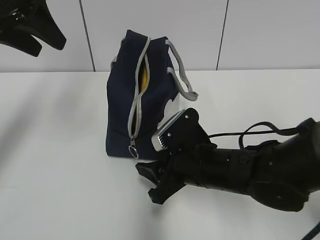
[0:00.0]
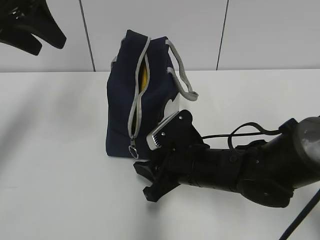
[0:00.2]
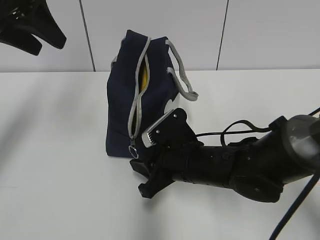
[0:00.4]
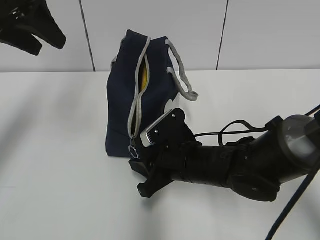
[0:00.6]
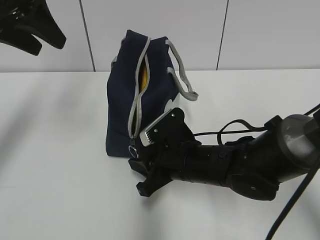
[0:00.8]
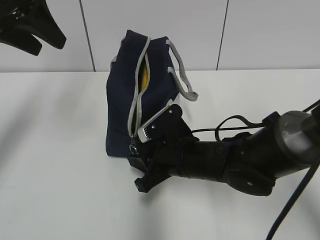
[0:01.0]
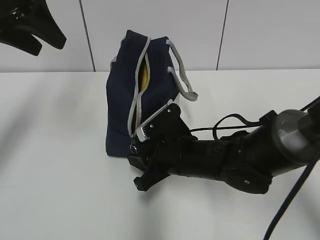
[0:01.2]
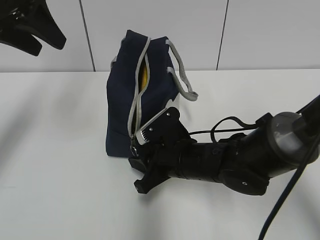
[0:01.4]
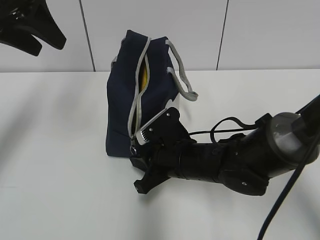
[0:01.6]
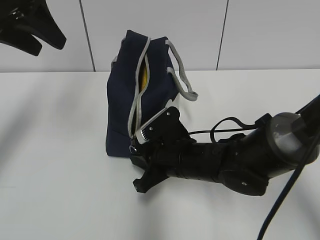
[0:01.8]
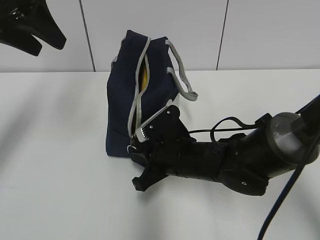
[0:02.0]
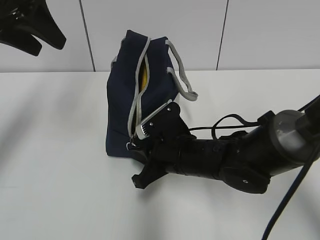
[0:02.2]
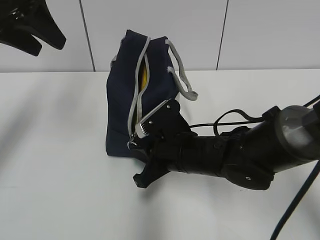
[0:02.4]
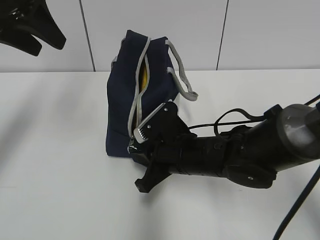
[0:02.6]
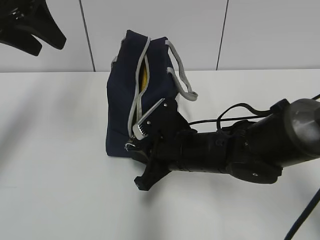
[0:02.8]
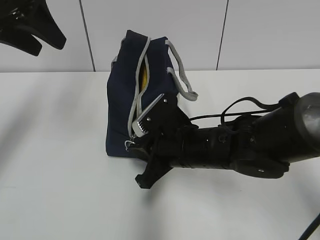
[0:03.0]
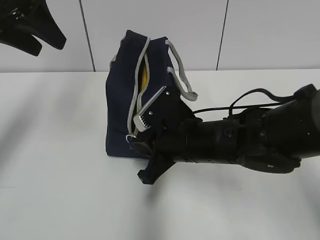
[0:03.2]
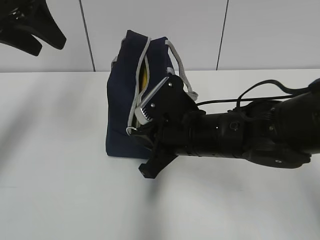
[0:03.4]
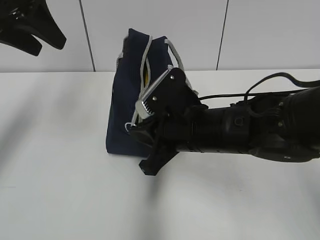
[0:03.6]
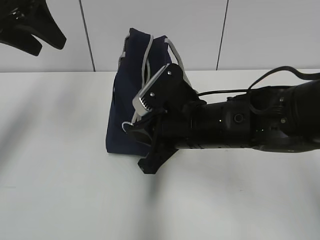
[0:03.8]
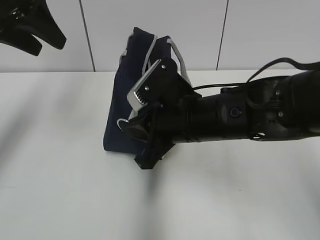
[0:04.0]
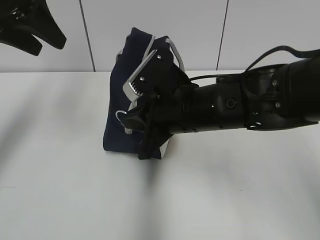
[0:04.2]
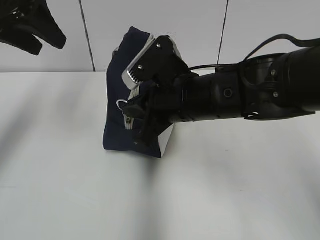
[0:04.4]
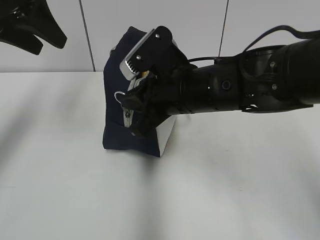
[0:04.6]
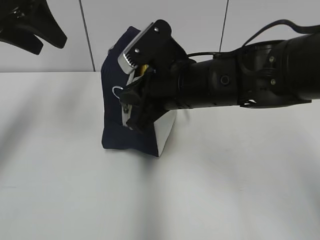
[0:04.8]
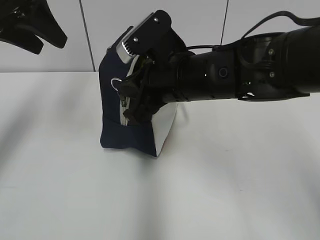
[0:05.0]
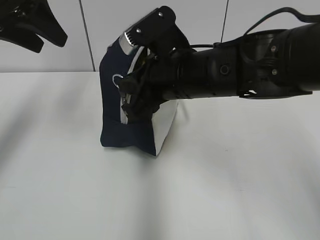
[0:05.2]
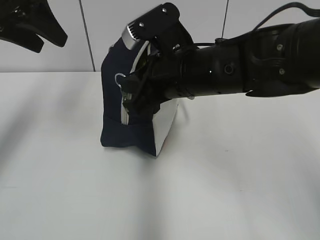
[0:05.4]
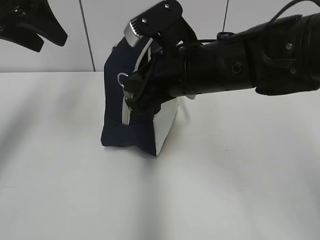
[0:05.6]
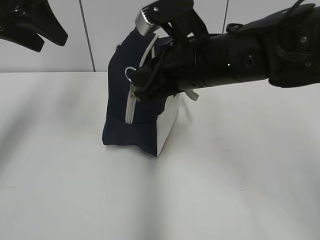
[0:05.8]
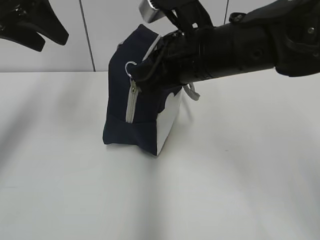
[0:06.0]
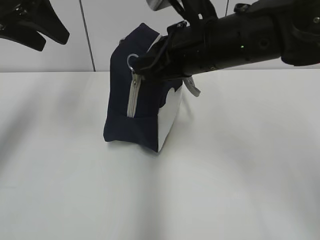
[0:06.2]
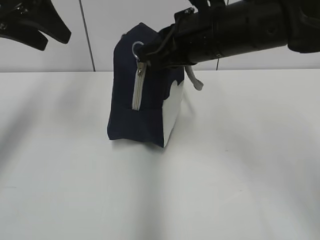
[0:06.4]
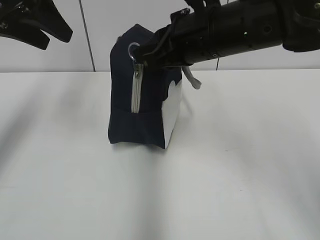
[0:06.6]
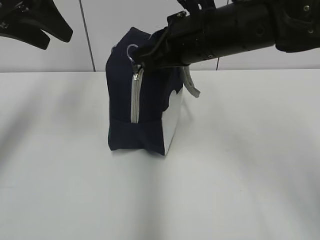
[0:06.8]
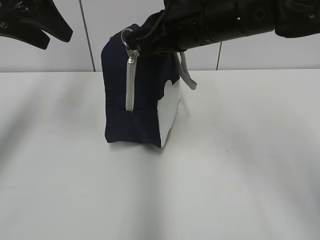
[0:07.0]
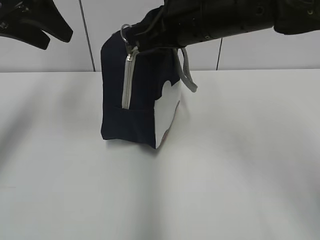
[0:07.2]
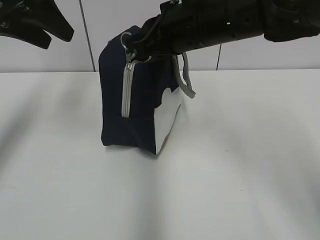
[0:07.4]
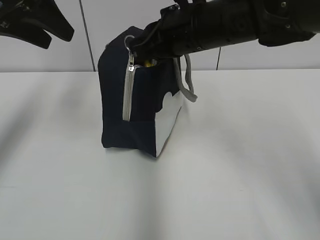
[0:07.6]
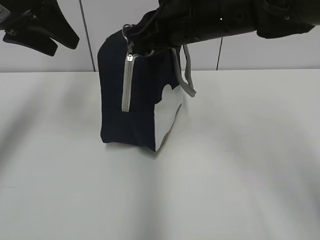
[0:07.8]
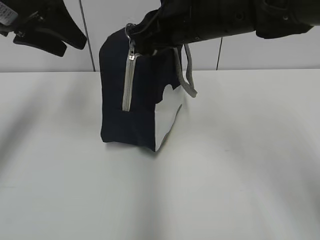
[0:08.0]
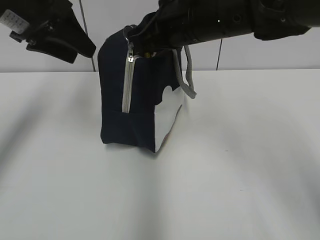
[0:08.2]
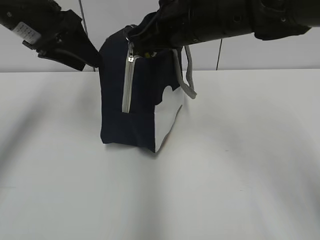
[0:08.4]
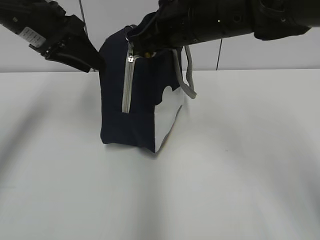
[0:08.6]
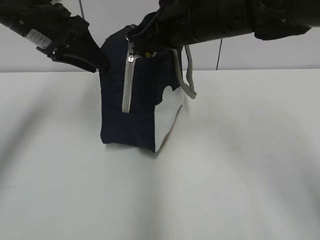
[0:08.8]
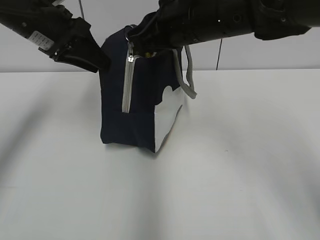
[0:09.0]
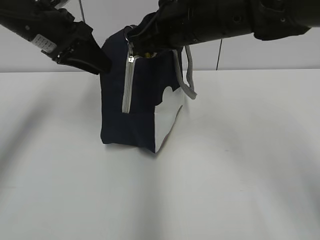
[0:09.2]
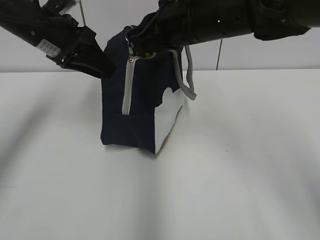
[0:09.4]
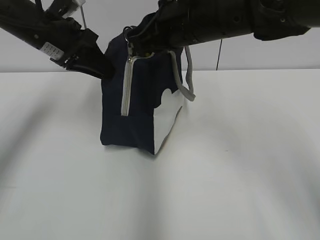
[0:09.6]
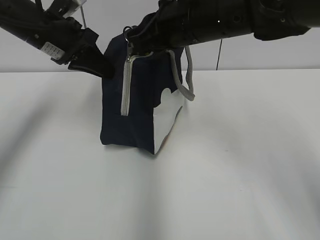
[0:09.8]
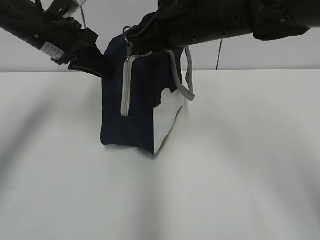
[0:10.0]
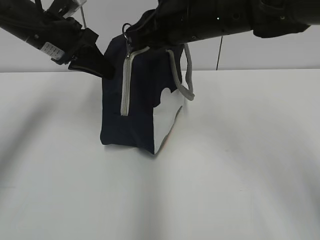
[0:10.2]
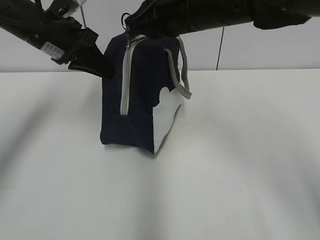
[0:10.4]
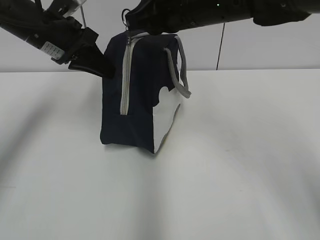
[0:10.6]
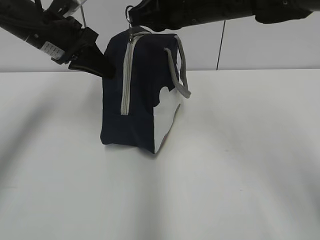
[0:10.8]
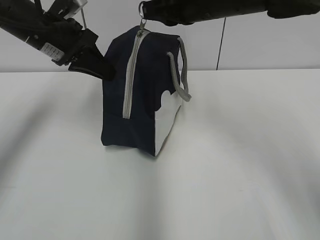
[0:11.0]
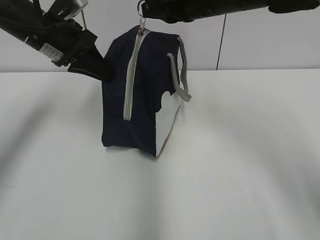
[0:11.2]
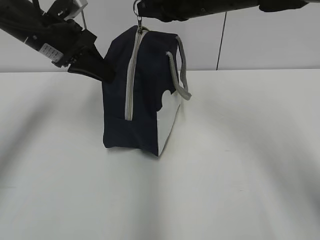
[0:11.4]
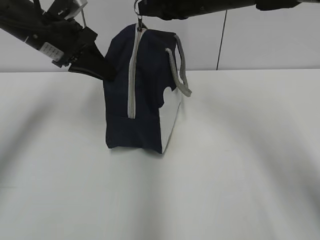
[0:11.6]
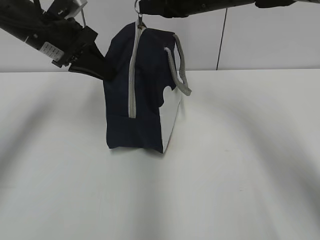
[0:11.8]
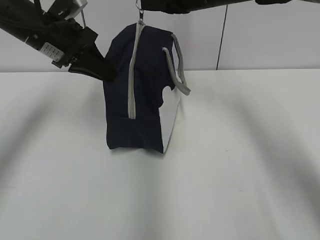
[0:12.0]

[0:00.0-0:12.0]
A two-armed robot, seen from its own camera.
Step, 0:00.0 to 0:10.0: Grab the lunch bag with your left hand.
0:00.0 to 0:01.6: The right gripper closes its fingers.
0:01.6 to 0:03.0: The grippers make only small movements.
0:03.0 to 0:04.4: The right gripper goes approximately 10 cm upward.
0:04.4 to 0:06.0: The right gripper goes approximately 5 cm upward.
0:06.0 to 0:07.6: The right gripper ends up about 5 cm from where it was.
0:07.6 to 0:09.0: The left gripper is displaced downward by roughly 5 cm.
0:09.0 to 0:10.4: The left gripper closes up.
0:10.4 to 0:12.0: The right gripper shifts about 10 cm forward.

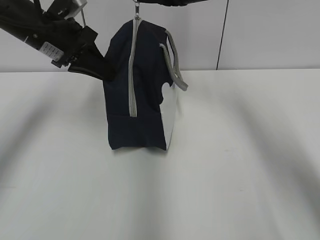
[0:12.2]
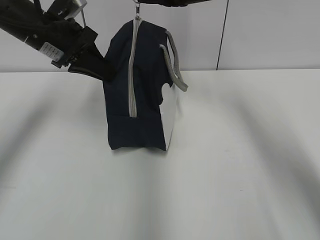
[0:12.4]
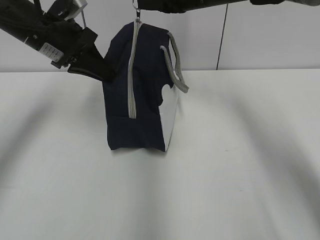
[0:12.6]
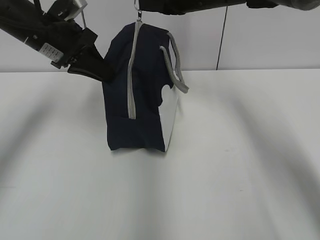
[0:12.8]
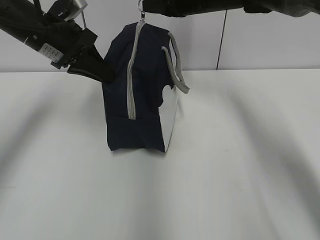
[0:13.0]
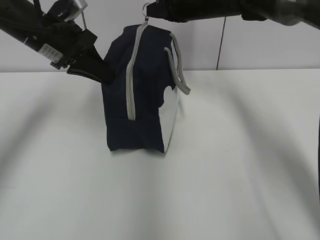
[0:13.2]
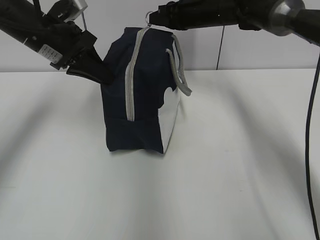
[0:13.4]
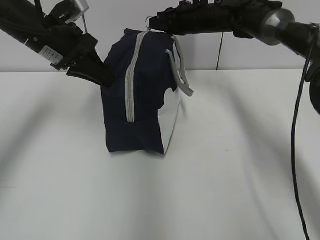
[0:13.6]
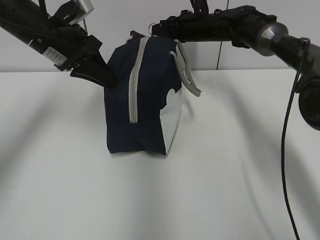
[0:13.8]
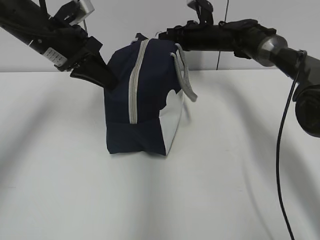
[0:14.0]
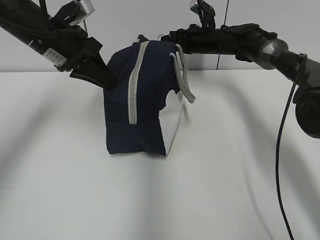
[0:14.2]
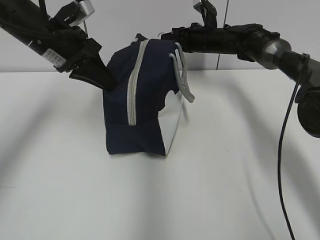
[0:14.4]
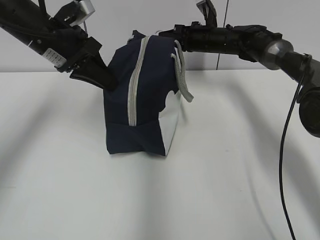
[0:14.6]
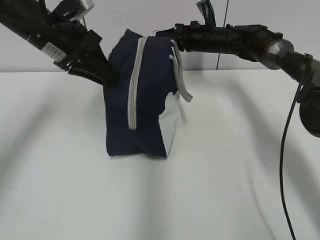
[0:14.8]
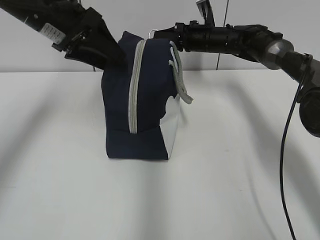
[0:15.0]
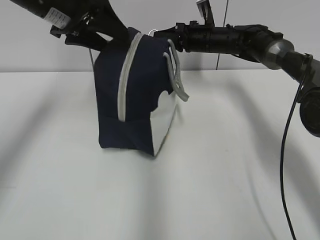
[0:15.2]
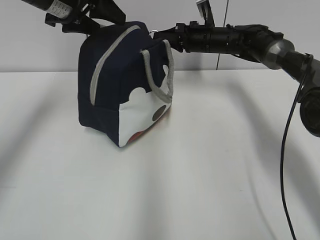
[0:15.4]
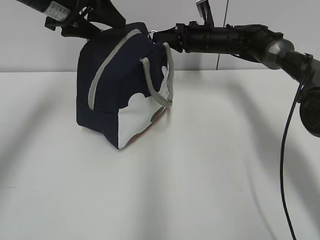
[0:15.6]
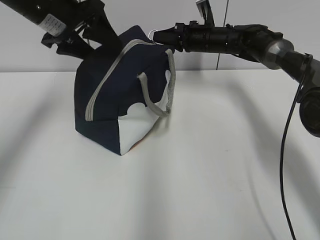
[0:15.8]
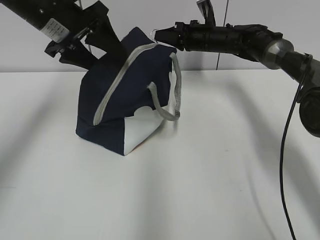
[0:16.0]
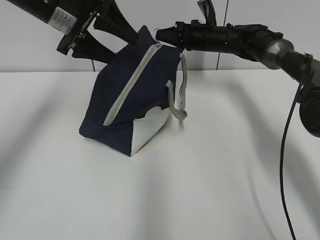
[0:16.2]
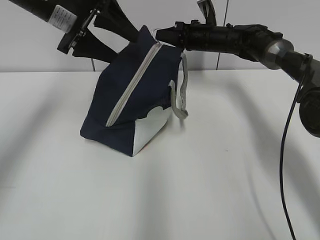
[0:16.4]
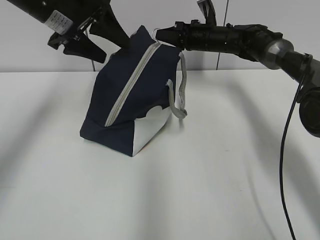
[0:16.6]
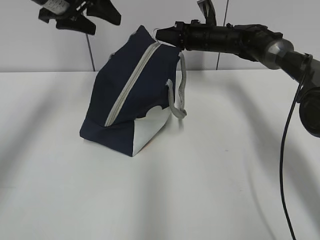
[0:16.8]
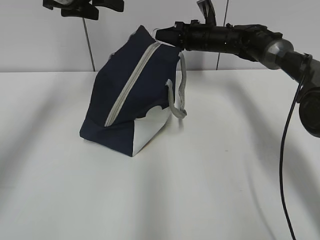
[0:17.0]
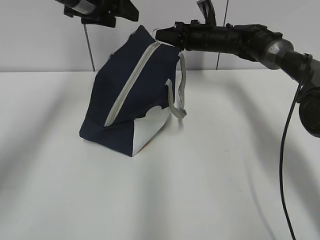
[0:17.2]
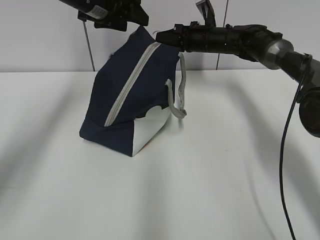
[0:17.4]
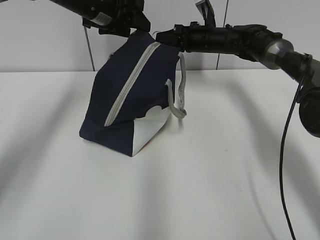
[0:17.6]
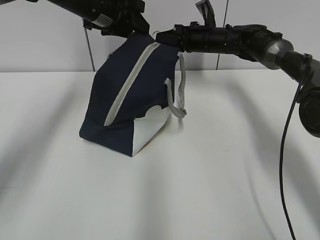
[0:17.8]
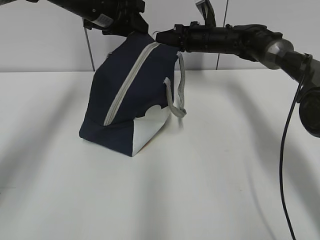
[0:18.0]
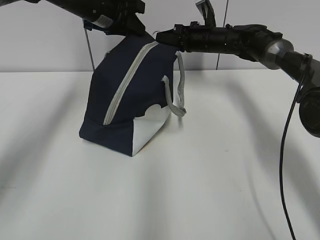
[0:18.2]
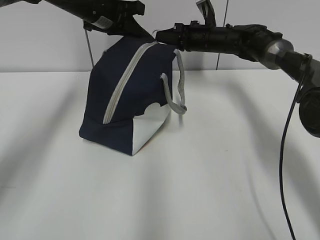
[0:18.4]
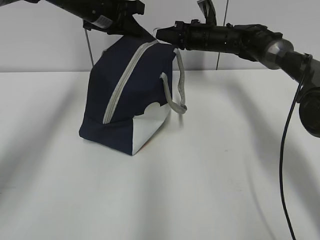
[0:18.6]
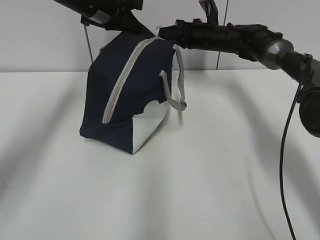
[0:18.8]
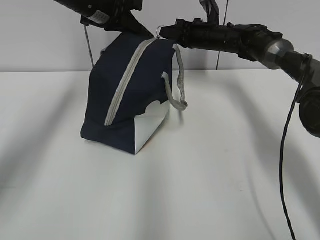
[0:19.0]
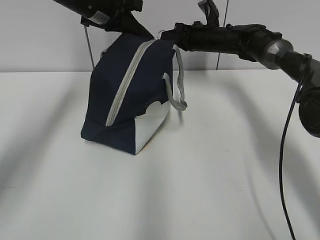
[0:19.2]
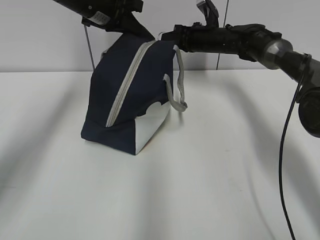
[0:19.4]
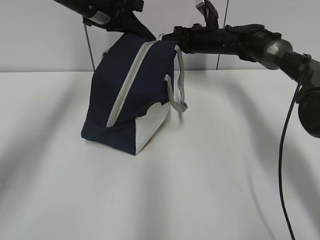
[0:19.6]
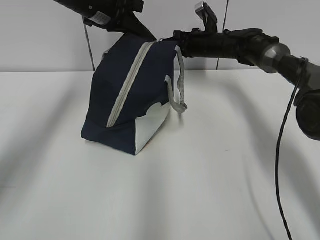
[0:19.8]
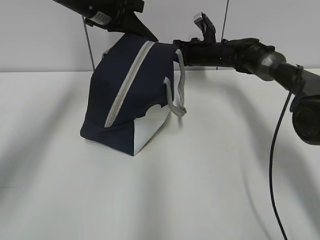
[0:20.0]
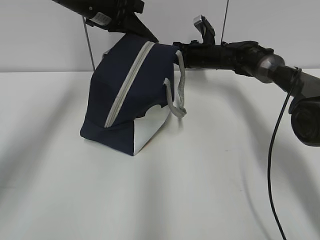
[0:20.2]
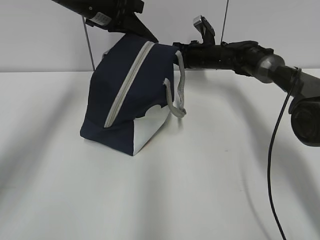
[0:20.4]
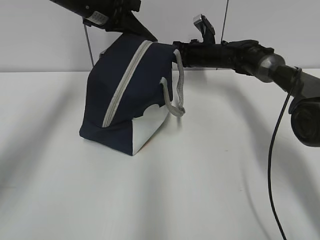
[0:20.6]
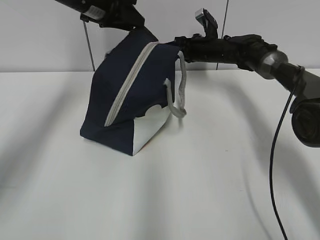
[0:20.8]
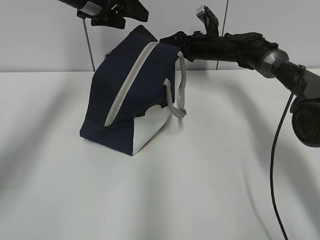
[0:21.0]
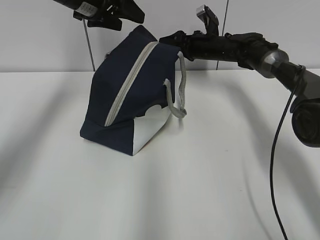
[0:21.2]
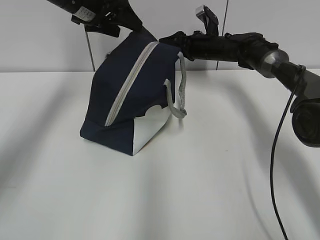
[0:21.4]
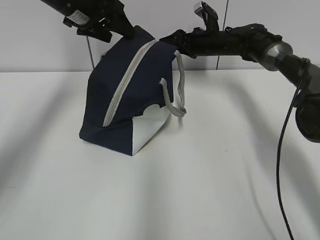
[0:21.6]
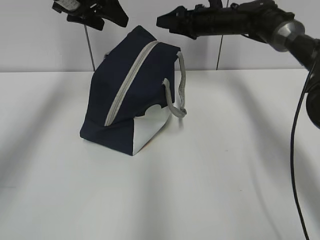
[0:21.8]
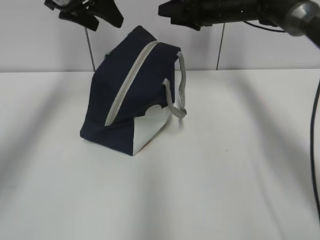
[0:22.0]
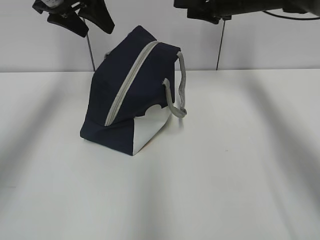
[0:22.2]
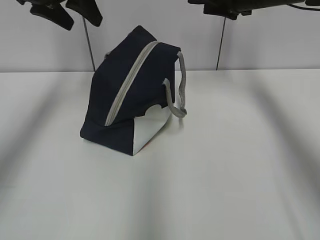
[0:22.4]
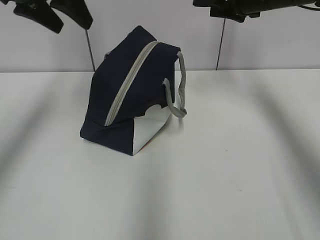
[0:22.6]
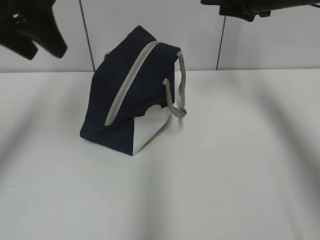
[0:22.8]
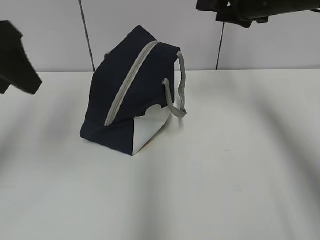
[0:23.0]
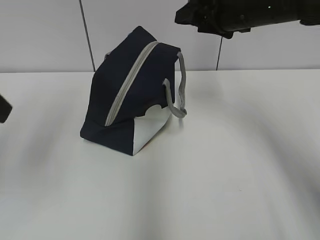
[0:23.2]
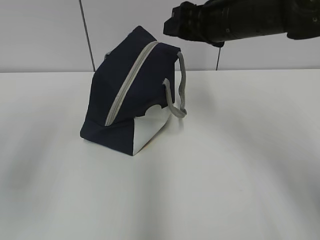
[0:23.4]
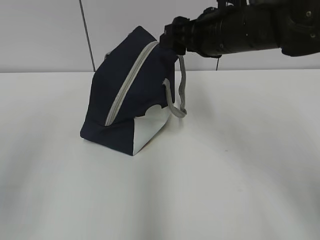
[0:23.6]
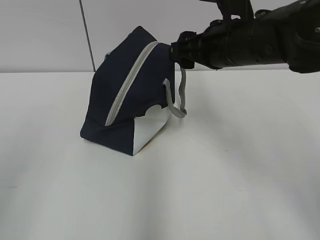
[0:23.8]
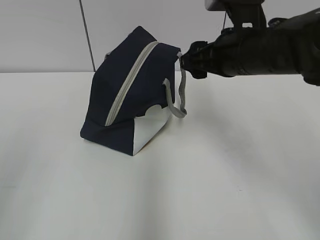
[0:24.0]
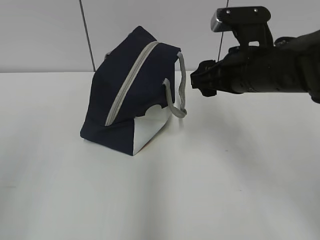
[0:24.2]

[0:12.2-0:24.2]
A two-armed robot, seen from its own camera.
Step, 0:12.2 to 0:20.4: Pull the zipper with your right hand.
0:12.2 to 0:13.8: The right gripper goes about 15 cm downward and forward.
0:13.8 to 0:15.2: The left gripper shifts by approximately 5 cm, and opens its fingers.
0:15.2 to 0:16.6: The grippers make only small movements.
0:16.6 to 0:18.2: The left gripper goes some 10 cm forward, and closes its fingers.
0:18.2 to 0:19.8: The left gripper closes its fingers.
0:19.8 to 0:21.2: The right gripper opens; the left gripper opens up.
0:21.2 to 0:22.6: The left gripper is displaced backward and upward by roughly 10 cm. The right gripper is displaced upward and backward by approximately 20 cm.
0:22.6 to 0:24.2: The right gripper travels backward and to the left by about 15 cm, while the left gripper heads backward, covering roughly 30 cm.
